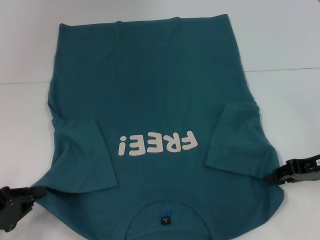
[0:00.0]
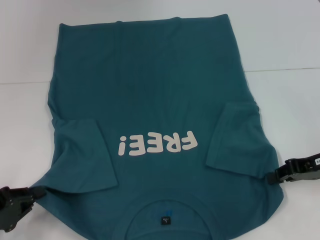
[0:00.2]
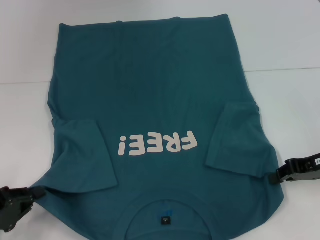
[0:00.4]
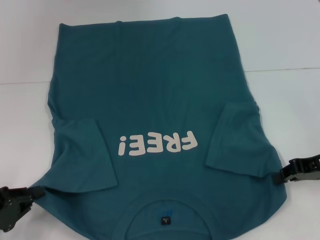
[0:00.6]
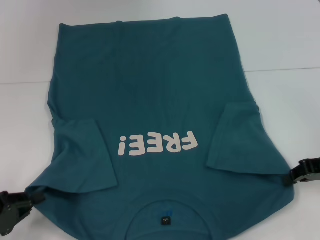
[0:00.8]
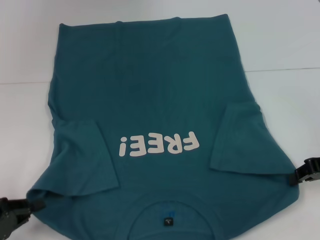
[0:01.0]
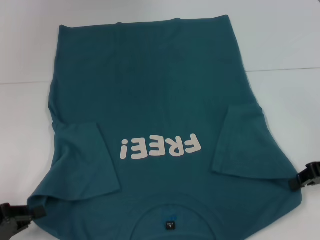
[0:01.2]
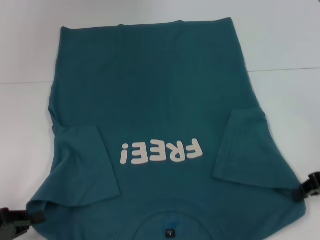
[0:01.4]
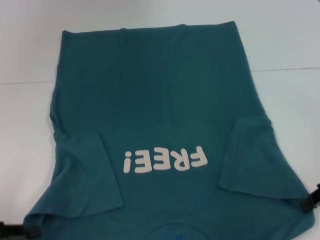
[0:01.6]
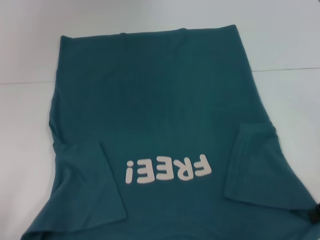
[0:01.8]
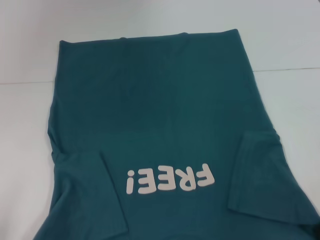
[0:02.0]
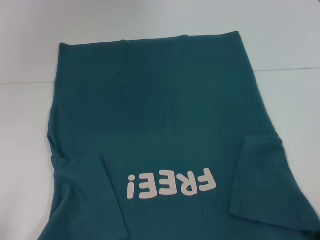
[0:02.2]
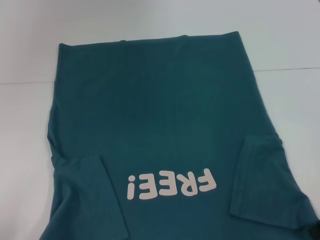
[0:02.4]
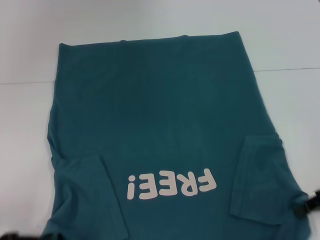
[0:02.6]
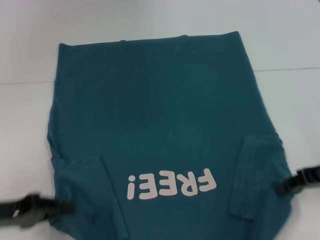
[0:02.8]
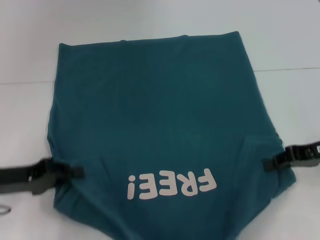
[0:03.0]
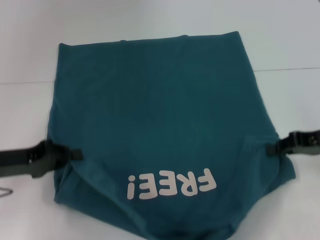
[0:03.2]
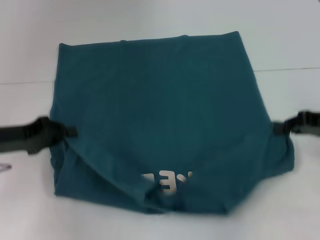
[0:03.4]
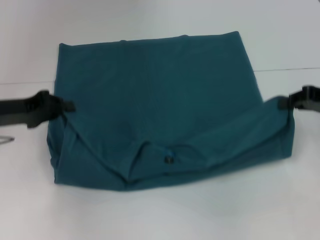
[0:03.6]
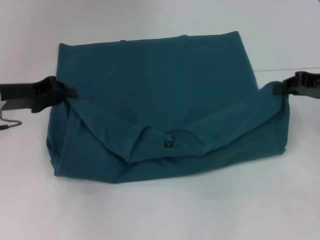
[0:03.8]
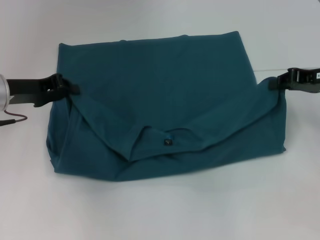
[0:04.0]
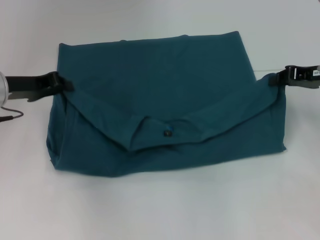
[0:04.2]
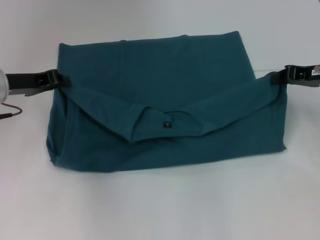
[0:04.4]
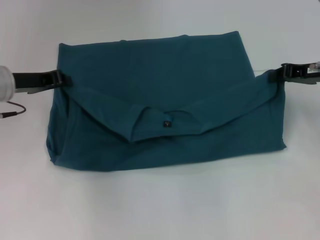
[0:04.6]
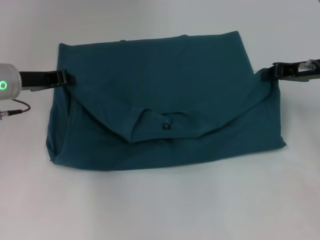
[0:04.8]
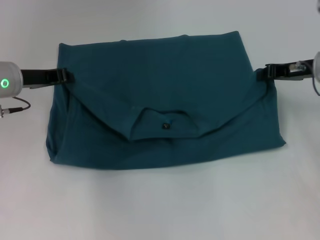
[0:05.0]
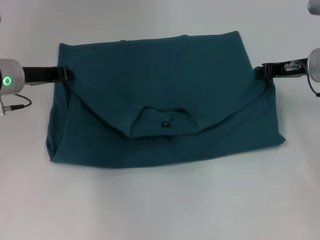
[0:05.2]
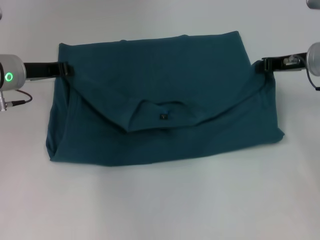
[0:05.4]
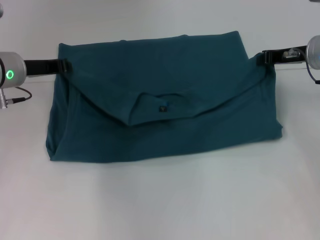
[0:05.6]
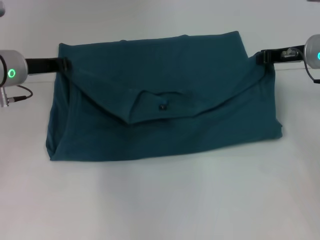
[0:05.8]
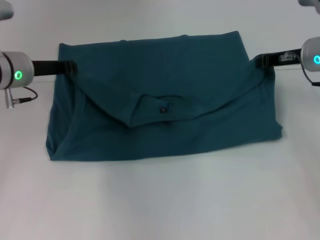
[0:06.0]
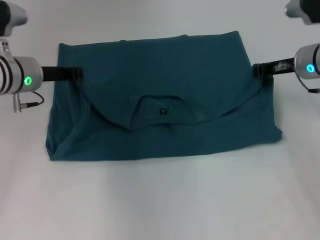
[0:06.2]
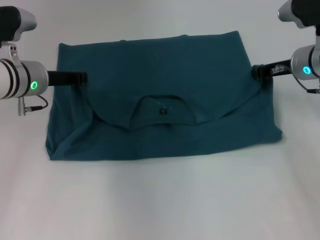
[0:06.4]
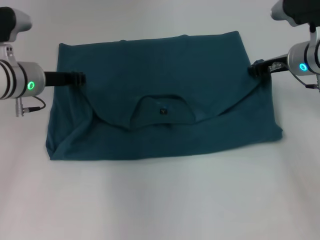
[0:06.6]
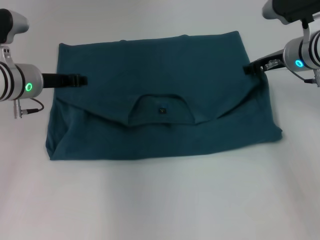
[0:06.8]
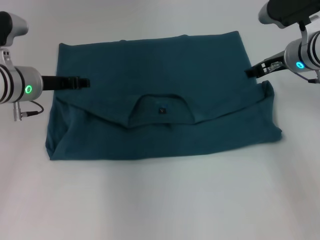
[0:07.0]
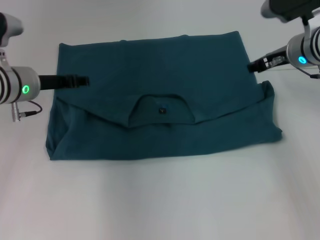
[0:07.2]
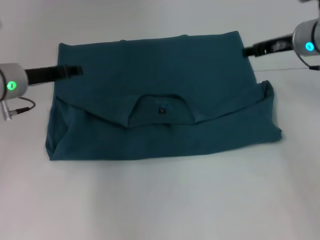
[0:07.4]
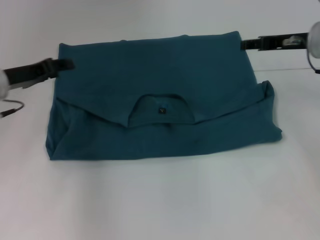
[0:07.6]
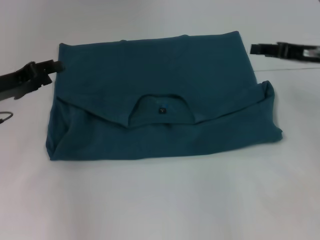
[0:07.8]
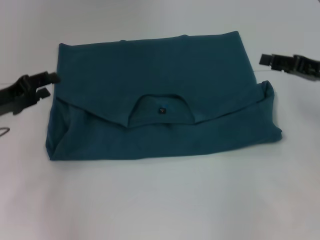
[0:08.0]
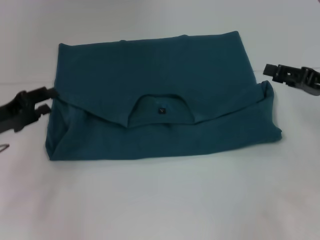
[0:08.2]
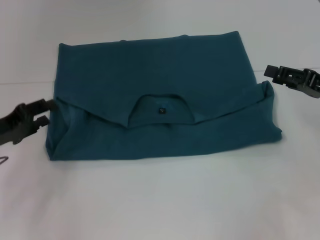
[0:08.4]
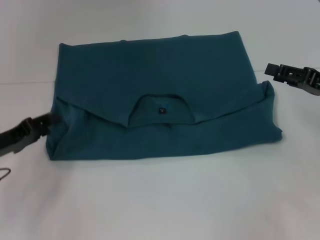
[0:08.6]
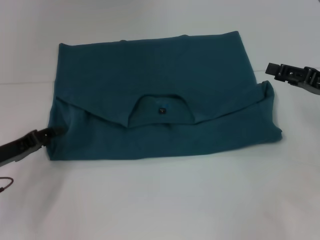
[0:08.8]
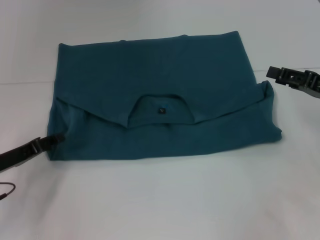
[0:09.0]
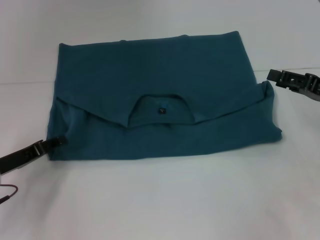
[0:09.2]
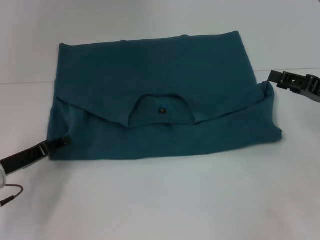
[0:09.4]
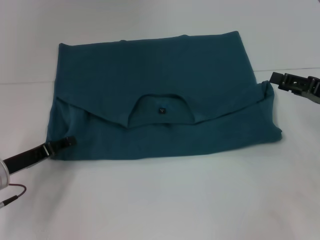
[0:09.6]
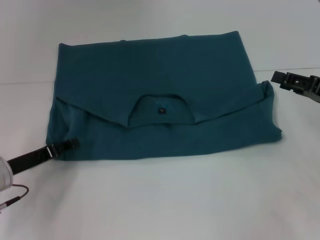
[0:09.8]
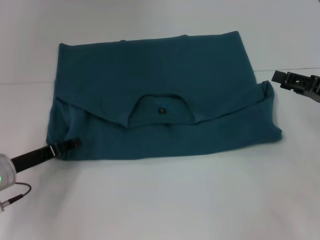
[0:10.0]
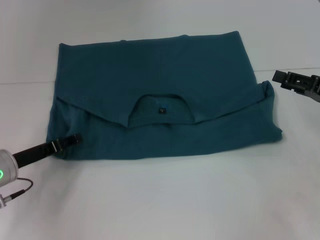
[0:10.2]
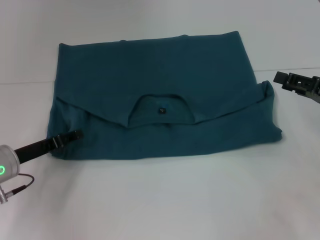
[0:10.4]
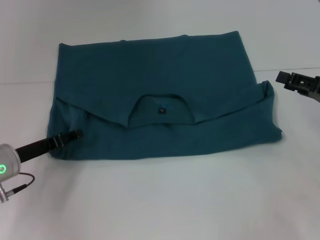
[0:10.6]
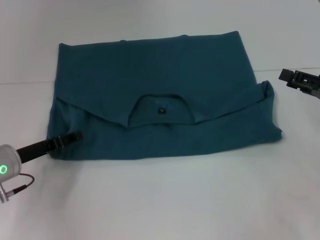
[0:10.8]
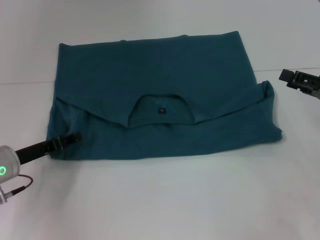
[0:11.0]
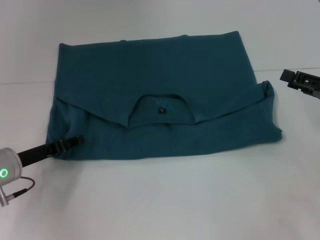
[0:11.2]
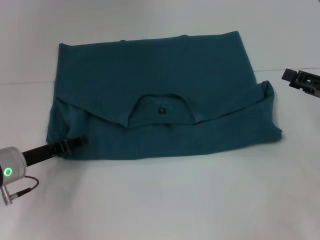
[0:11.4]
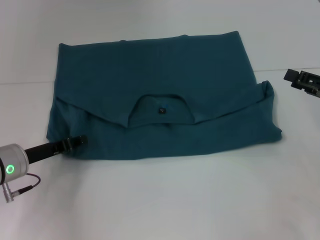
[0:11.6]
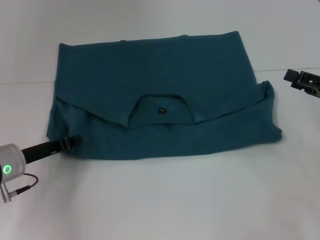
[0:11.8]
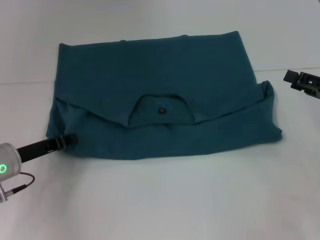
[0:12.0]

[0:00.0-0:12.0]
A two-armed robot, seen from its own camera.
Step, 0.4 to 7.0 s: Fold the clothes to the left.
Step, 0.4 to 7.0 s: Fold the clothes to the right.
0.0 to 1.6 s: The right gripper closes its fingers.
1.6 to 3.0 s: The left gripper heads forward and to the right, covering roughly 10 cm.
3.0 to 4.4 s: The right gripper moves forward, some 10 cm; the left gripper goes roughly 15 cm forward and upward.
4.4 to 6.0 s: The right gripper moves approximately 5 cm.
6.0 to 7.6 s: The right gripper opens its fingers. The left gripper ends up approximately 5 cm from where it was, and opens up.
7.6 to 9.0 s: The left gripper travels downward and backward by about 15 cm. Meanwhile the right gripper moves backward, to the right and downward, approximately 15 cm.
9.0 to 10.4 s: The grippers stay close to where they were, moving slightly.
10.4 to 12.0 s: The left gripper closes up.

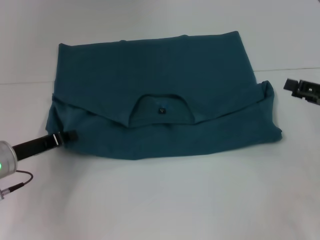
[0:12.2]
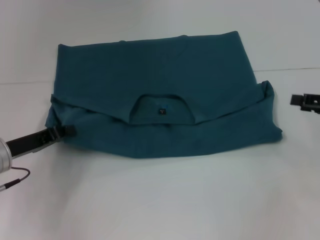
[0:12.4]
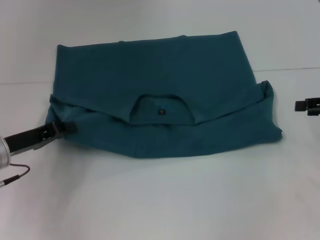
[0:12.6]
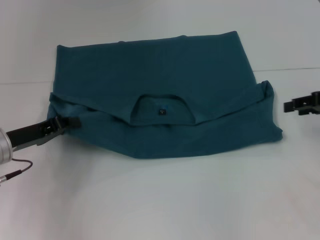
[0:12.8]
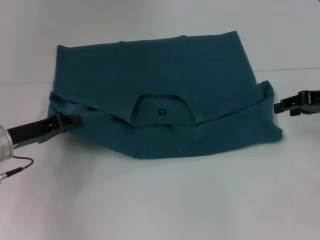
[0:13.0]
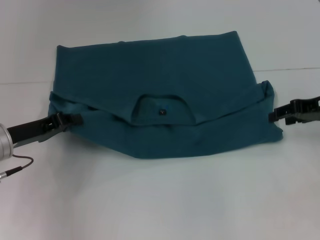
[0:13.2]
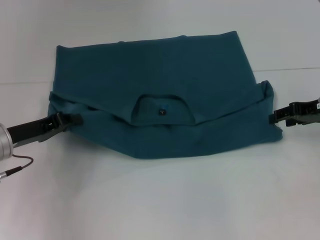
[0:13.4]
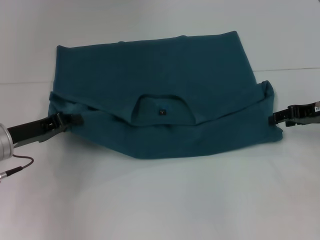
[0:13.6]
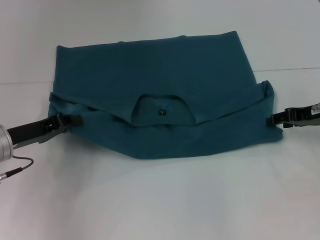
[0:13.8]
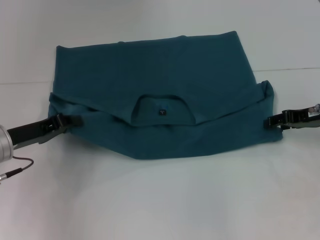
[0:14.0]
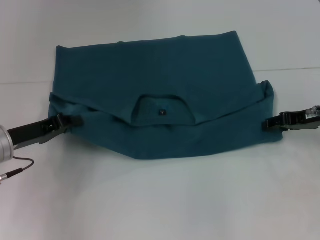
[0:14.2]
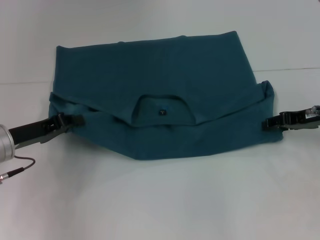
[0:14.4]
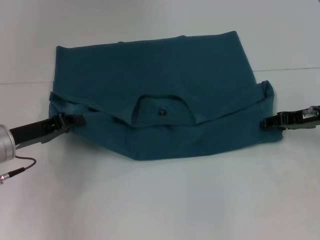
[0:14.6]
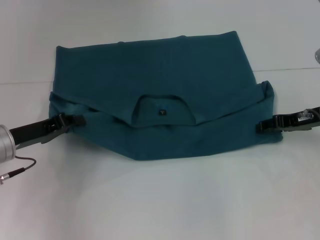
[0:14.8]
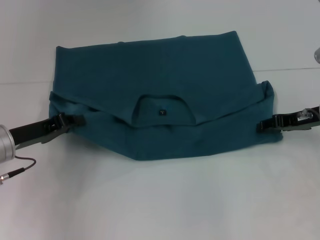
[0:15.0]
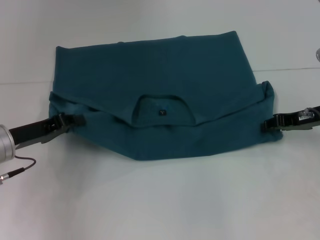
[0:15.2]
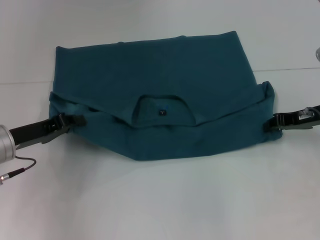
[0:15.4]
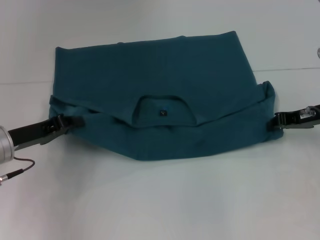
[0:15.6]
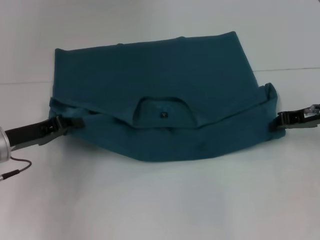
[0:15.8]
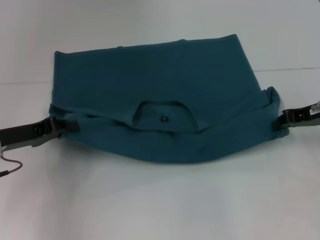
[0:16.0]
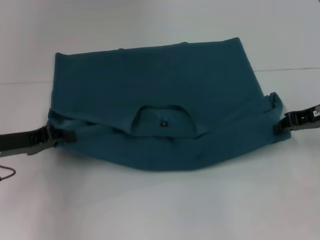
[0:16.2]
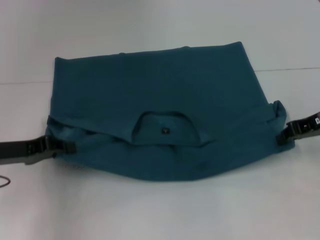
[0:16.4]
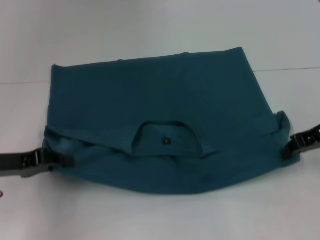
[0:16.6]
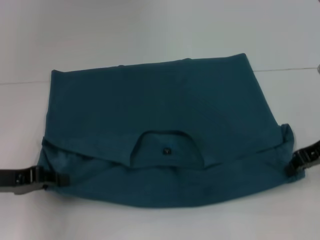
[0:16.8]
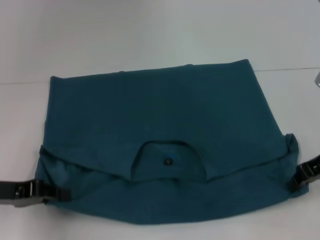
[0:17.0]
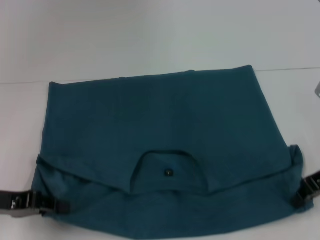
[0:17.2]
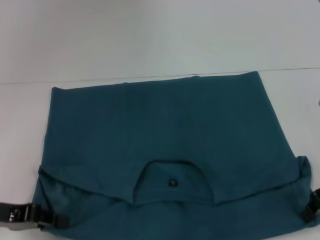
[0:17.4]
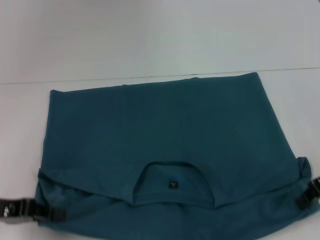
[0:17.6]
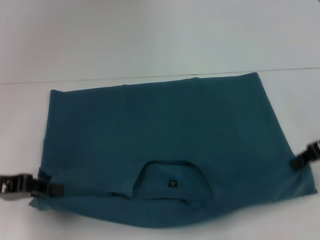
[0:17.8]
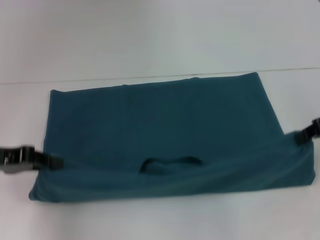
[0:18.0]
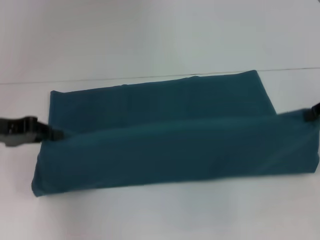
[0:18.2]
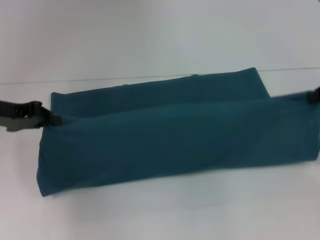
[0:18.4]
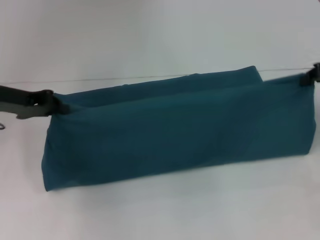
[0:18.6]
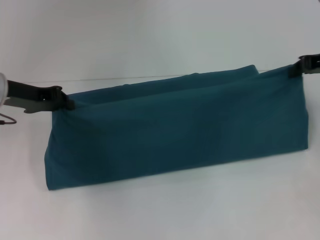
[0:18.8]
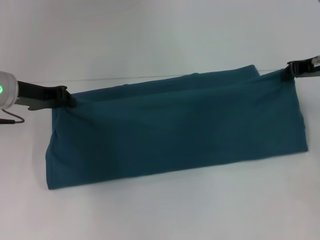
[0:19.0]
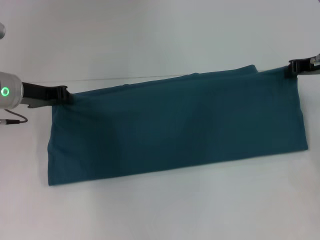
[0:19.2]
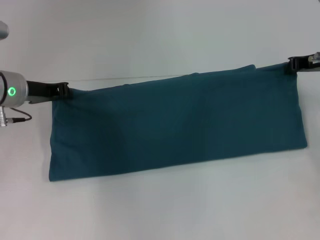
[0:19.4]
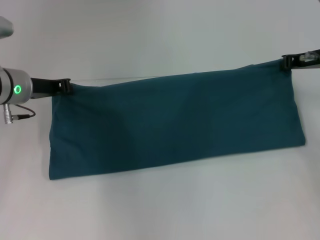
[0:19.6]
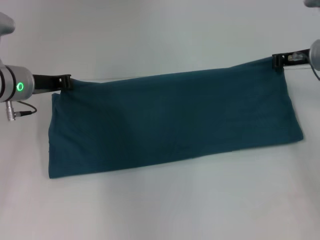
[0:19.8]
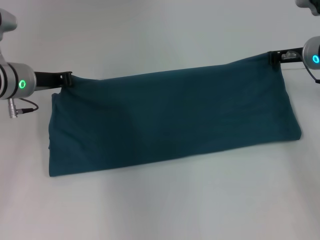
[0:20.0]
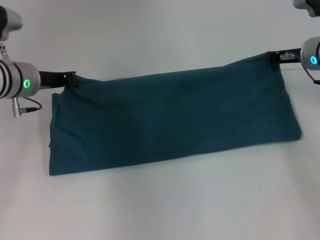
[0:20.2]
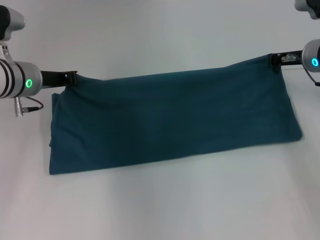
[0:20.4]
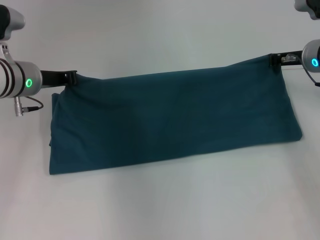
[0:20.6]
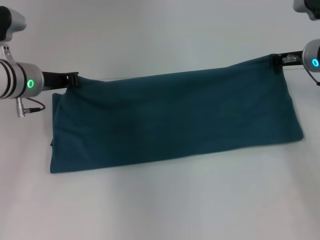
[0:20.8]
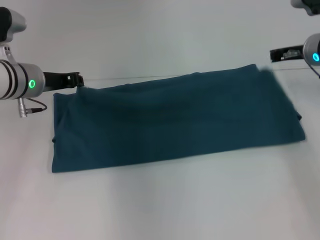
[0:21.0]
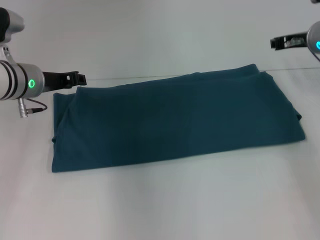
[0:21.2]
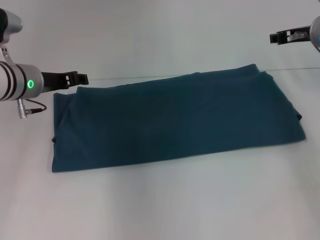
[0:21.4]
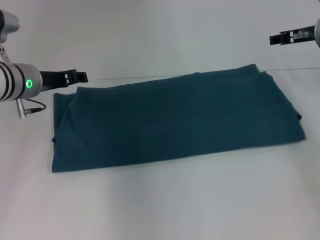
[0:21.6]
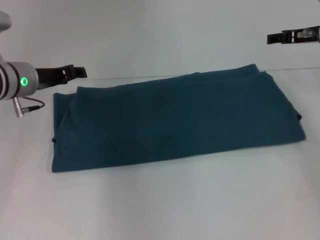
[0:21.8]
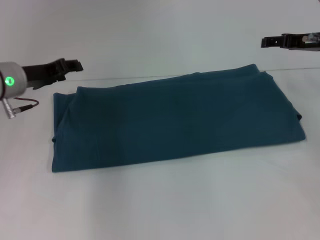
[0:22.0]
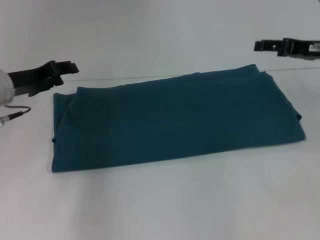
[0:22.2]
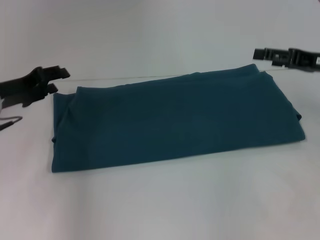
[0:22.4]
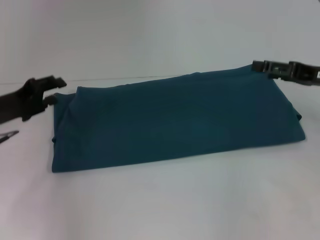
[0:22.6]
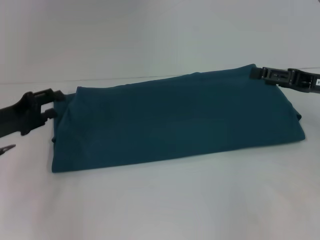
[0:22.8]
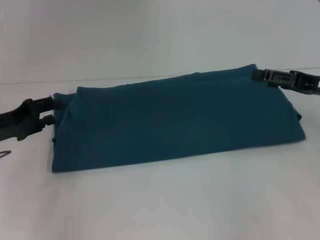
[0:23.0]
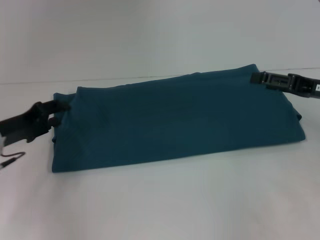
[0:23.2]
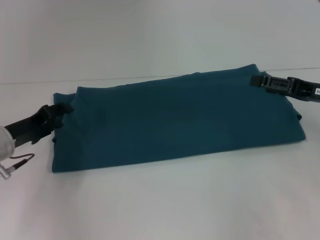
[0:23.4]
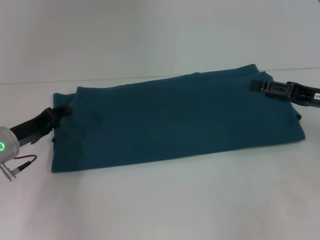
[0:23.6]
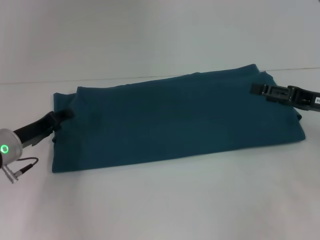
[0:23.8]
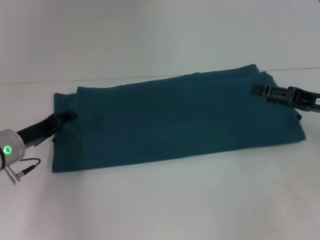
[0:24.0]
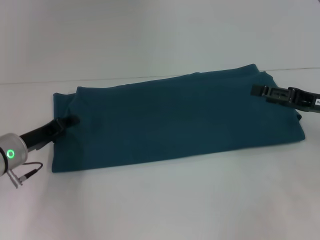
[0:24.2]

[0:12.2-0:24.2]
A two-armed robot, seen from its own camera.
Step, 12.2 to 17.2 s: Pull the clothes with your left hand.
Step, 12.2 to 17.2 s: Pull the clothes with your right hand.
Step, 17.4 to 21.0 s: Fold the clothes to the right.
12.2 to 13.8 s: The right gripper travels forward by roughly 5 cm.
13.8 to 15.2 s: The grippers move only a little.
15.2 to 16.6 s: The right gripper closes its fingers.
16.6 to 18.2 s: The right gripper changes place by roughly 5 cm, while the left gripper moves upward, some 5 cm.
18.2 to 19.8 s: The left gripper heads forward and to the right, covering roughly 10 cm, while the right gripper moves forward and to the left, some 10 cm.
19.8 to 21.2 s: The grippers stay close to where they were, moving slightly.
21.2 to 22.6 s: The right gripper moves backward, roughly 10 cm, and opens; the left gripper travels to the left and backward by some 10 cm, and opens.
22.6 to 24.2 s: The left gripper shifts some 5 cm downward.
